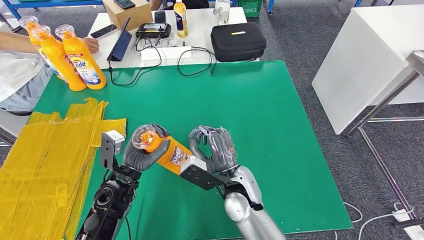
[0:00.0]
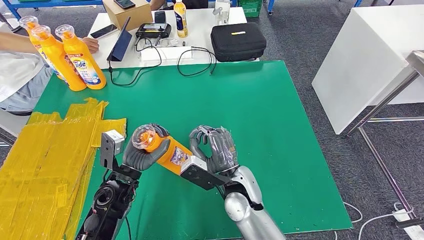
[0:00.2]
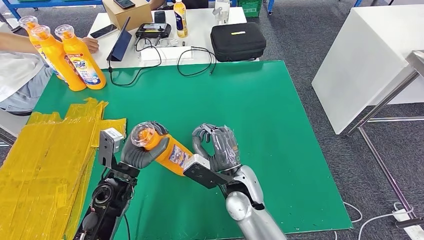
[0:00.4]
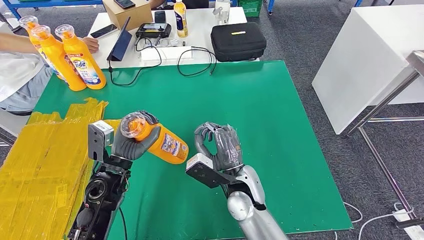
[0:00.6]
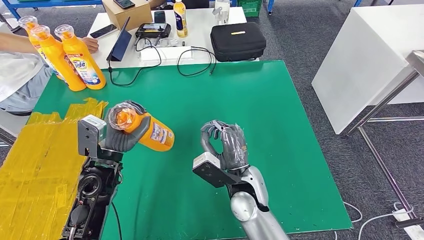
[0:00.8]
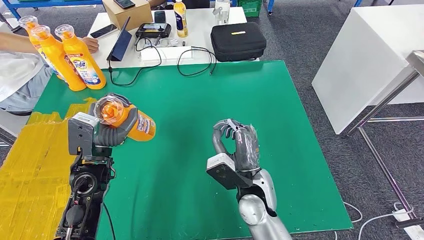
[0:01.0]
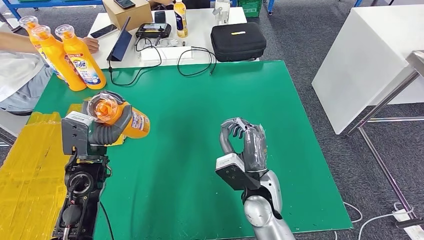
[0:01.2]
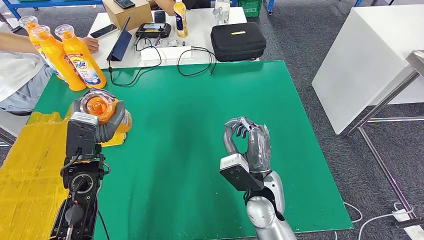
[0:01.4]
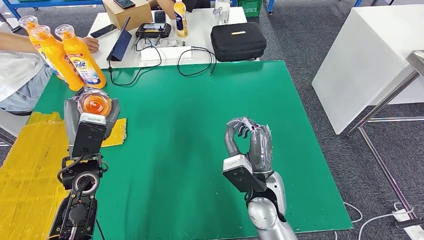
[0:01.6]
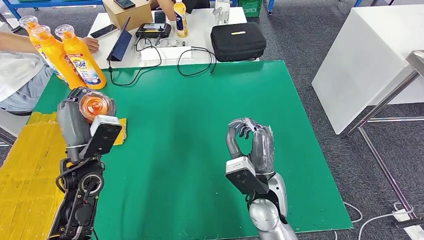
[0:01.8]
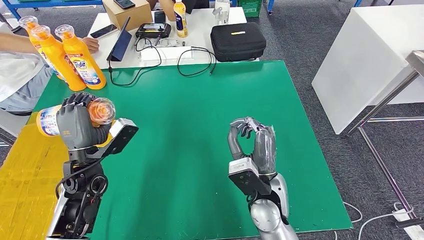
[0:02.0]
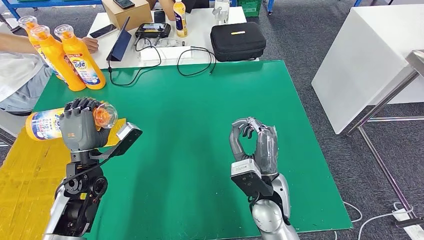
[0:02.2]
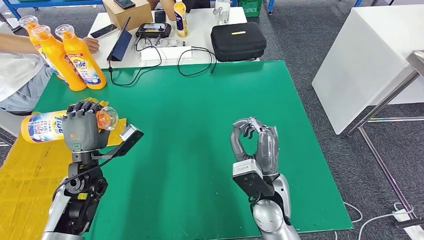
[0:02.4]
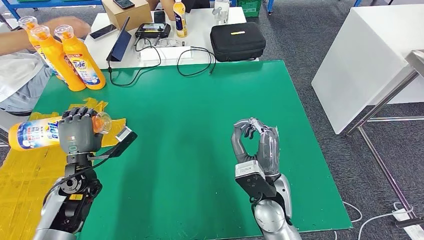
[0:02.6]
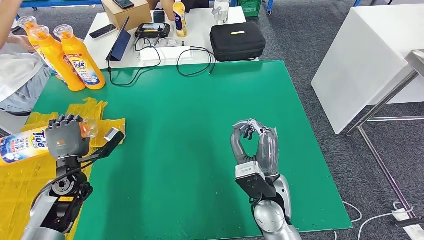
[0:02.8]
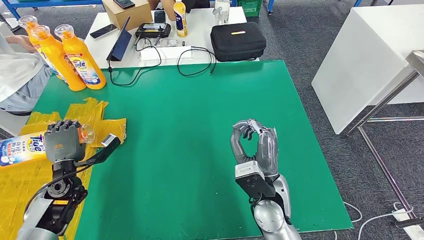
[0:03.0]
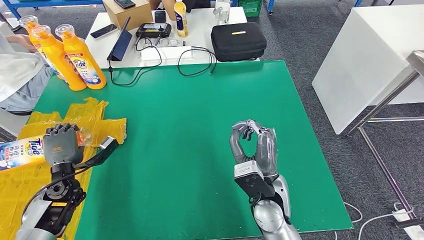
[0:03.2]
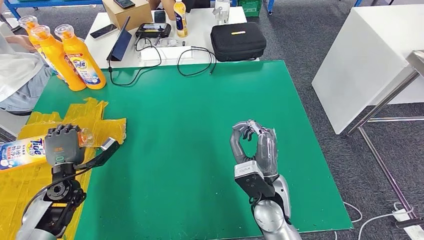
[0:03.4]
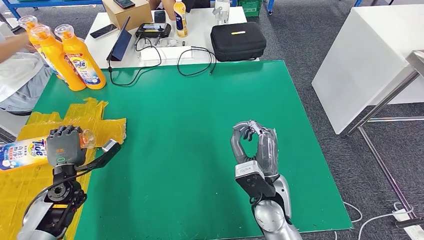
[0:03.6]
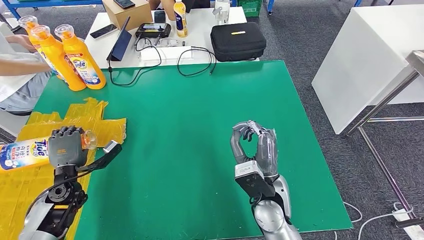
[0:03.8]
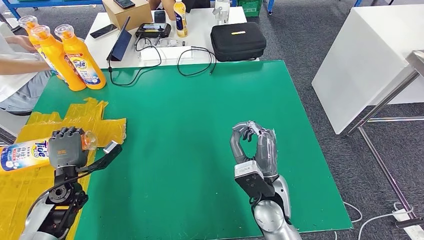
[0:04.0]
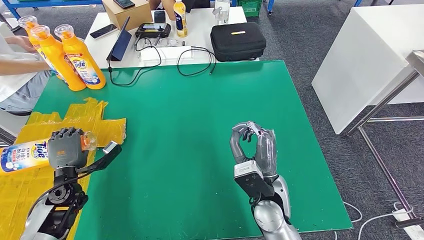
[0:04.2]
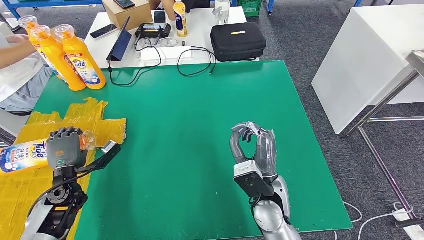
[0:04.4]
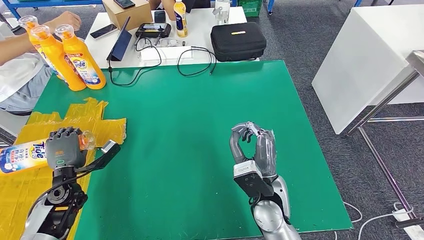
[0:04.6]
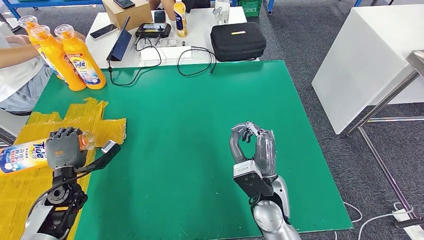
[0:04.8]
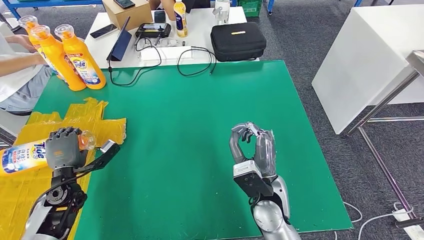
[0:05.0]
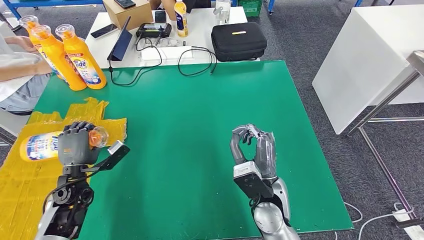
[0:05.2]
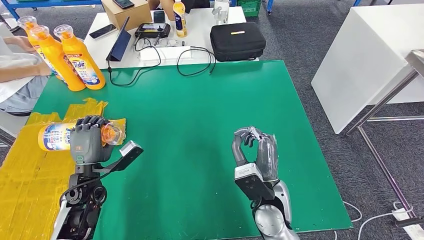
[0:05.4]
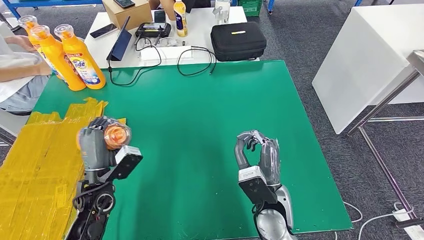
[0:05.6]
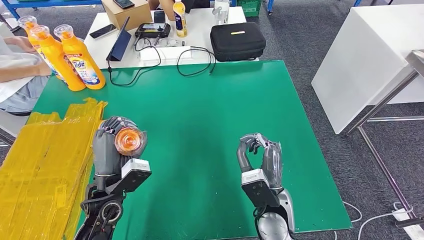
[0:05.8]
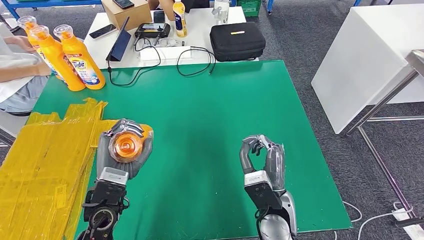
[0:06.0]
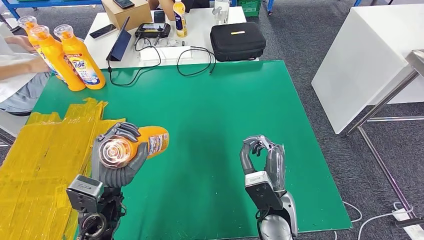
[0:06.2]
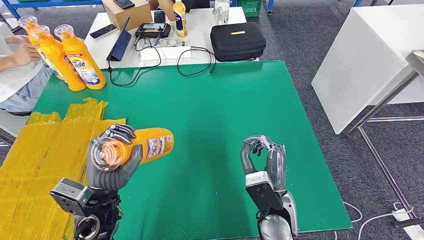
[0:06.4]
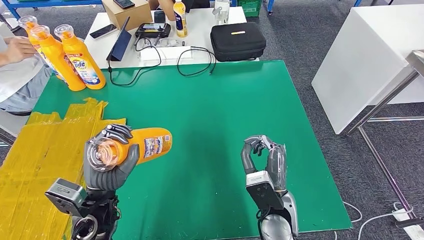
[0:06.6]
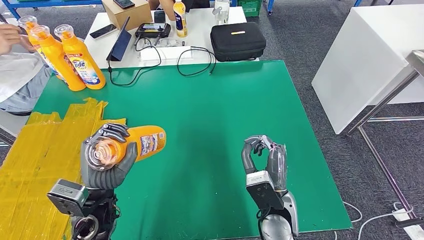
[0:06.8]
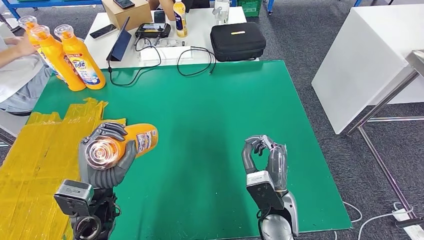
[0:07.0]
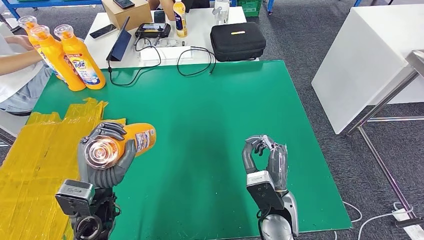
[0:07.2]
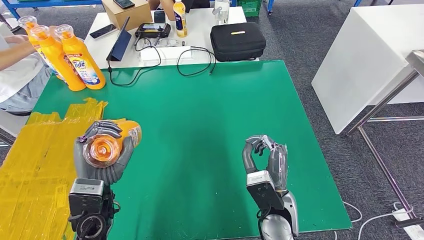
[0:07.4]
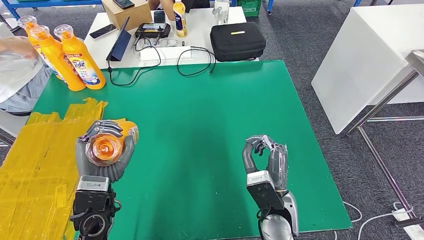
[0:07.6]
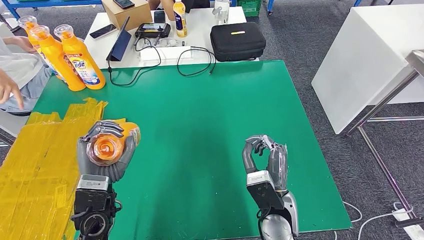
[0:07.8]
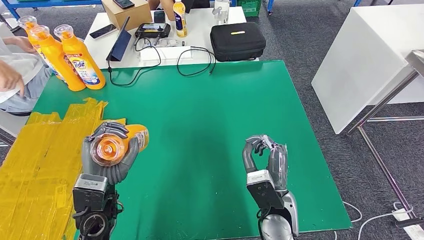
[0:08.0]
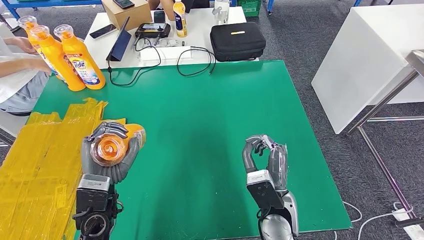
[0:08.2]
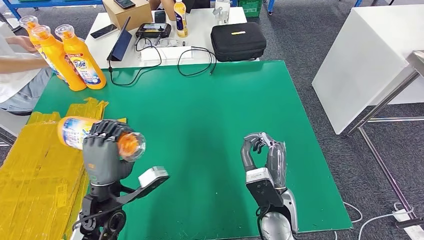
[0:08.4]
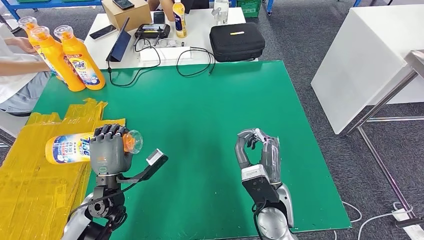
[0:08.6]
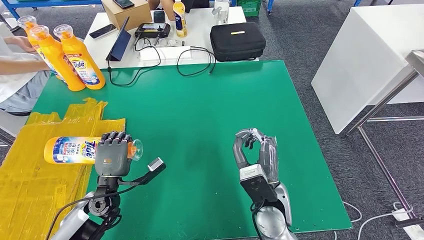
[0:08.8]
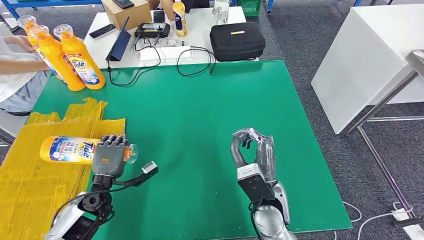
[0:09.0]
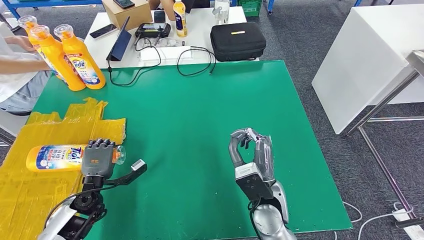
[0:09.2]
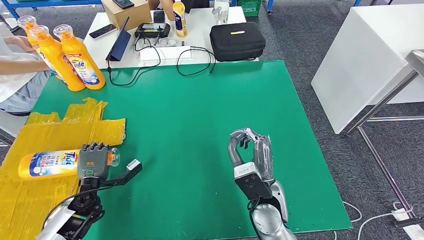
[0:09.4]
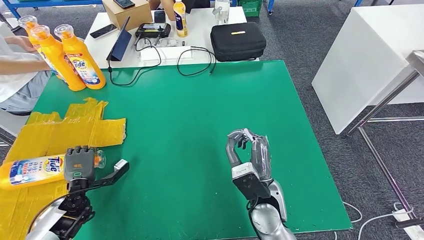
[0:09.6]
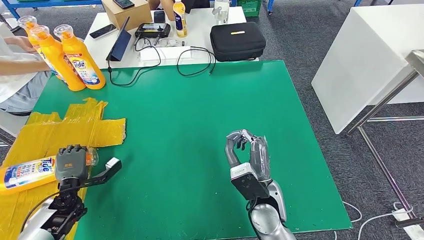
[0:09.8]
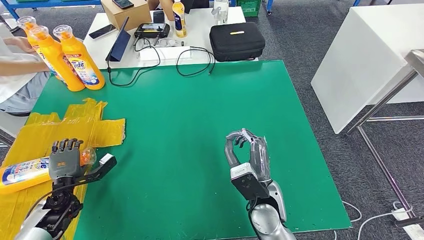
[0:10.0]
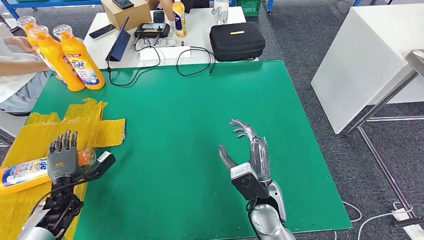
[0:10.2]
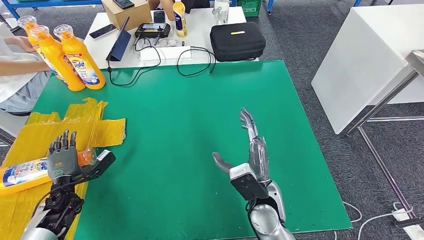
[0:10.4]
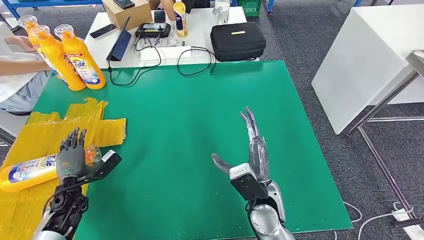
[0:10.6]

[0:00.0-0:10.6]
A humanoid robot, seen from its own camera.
Step, 0:00.0 to 0:10.4: Flip the fast-moving consumer goods bottle to the front side.
0:00.0 to 0:01.6: The right hand moves to the right, about 5 cm, while the left hand heads upward and to the left, covering roughly 10 cm.
0:01.6 to 0:03.0: The left hand is displaced to the left and downward by about 15 cm.
0:03.0 to 0:04.6: There are only small adjustments of the hands.
0:04.6 to 0:06.0: The left hand travels to the right and upward by roughly 20 cm.
0:07.6 to 0:09.0: The left hand goes approximately 15 cm downward, to the left and forward.
0:09.0 to 0:10.6: The left hand travels to the left by roughly 10 cm.
